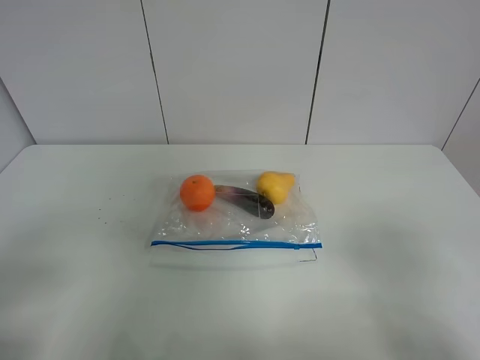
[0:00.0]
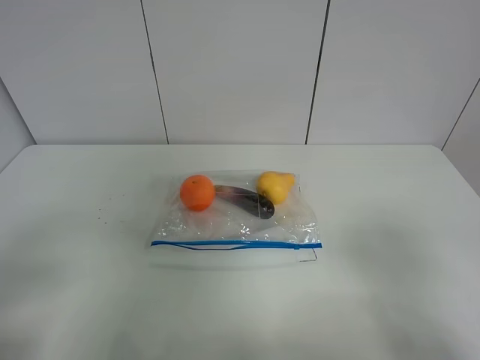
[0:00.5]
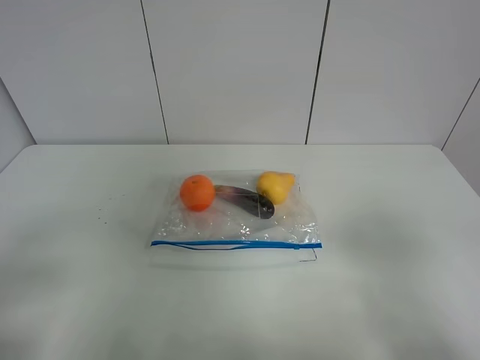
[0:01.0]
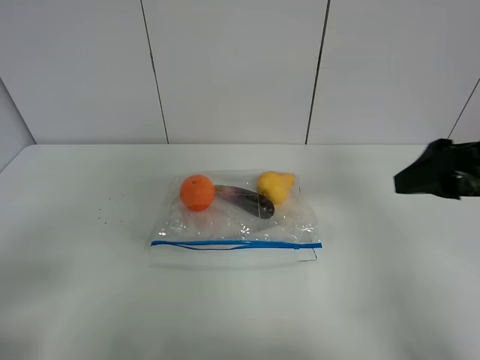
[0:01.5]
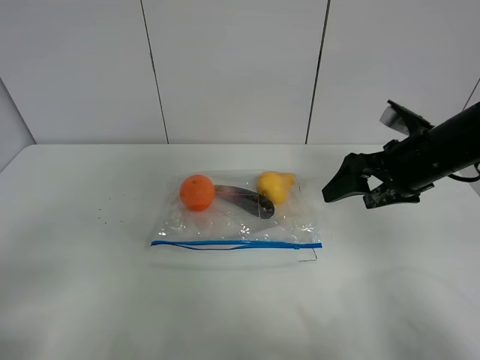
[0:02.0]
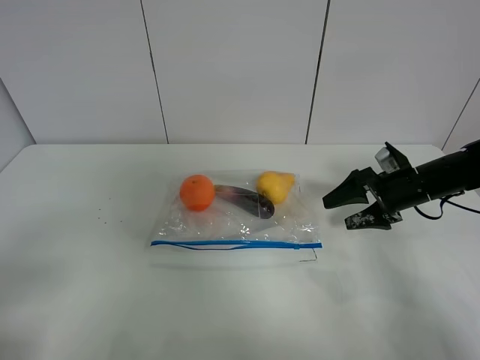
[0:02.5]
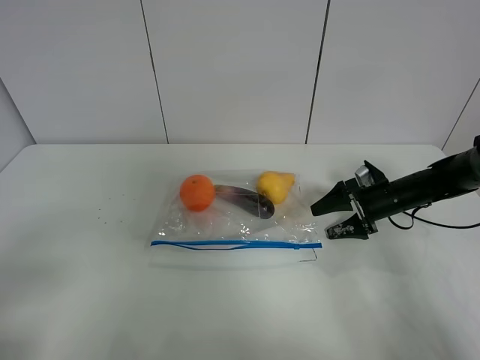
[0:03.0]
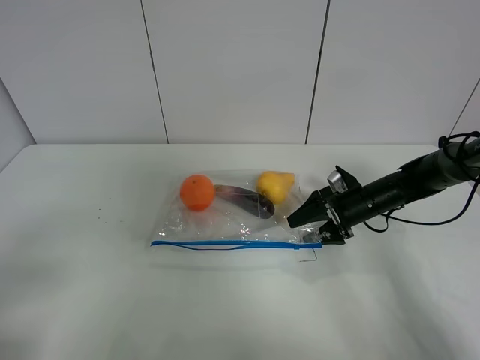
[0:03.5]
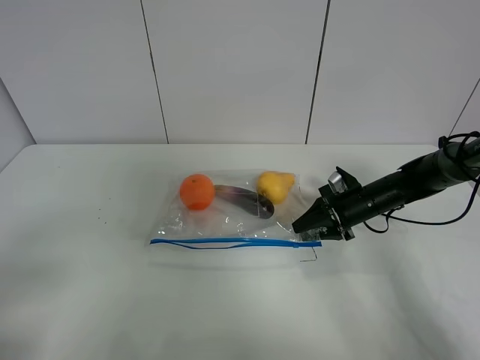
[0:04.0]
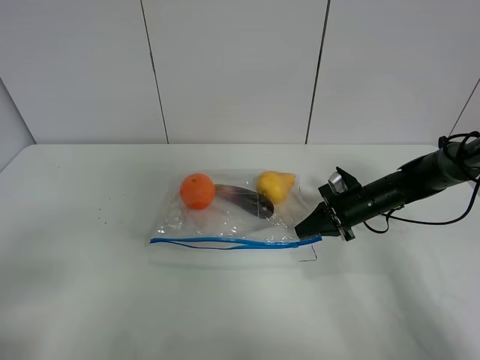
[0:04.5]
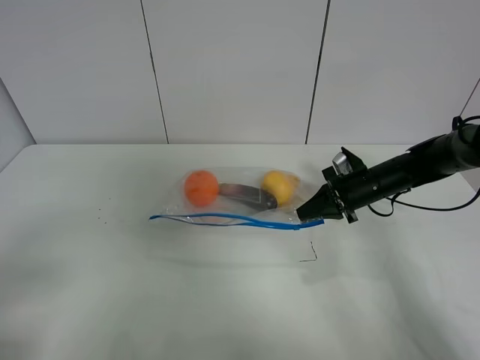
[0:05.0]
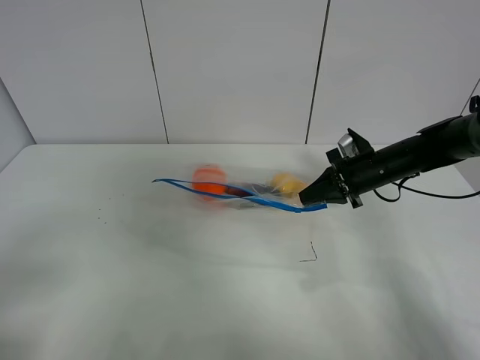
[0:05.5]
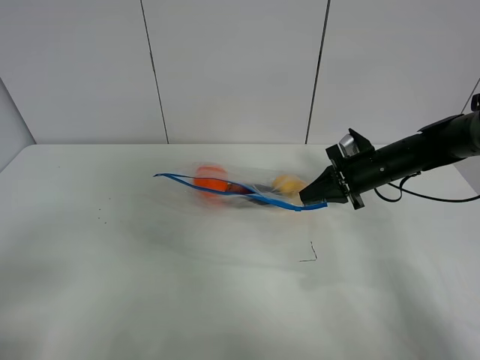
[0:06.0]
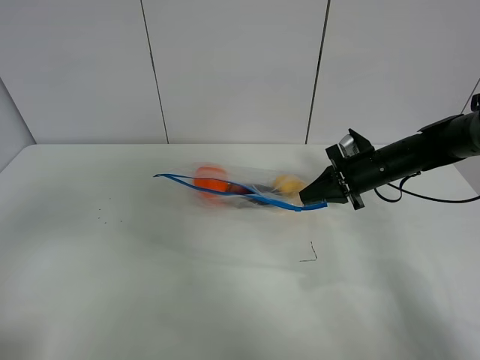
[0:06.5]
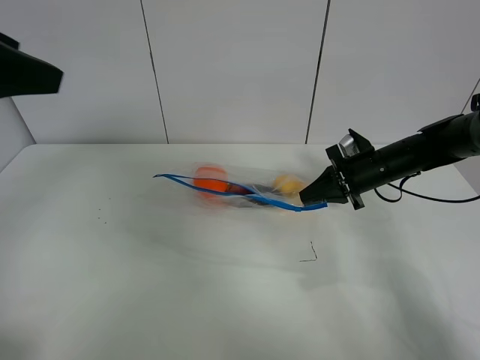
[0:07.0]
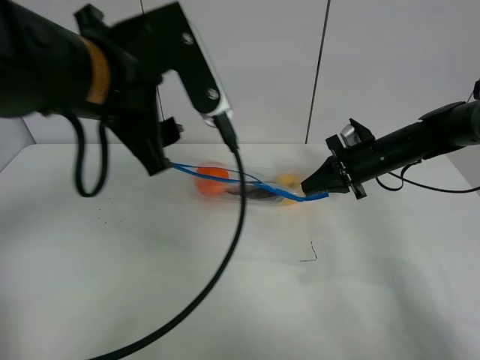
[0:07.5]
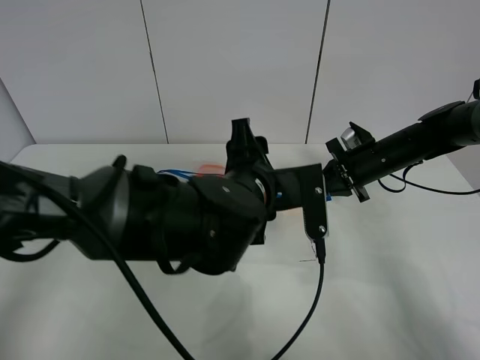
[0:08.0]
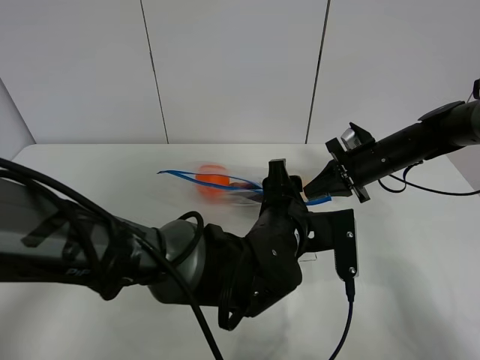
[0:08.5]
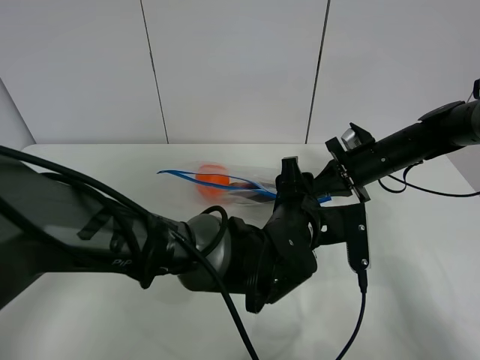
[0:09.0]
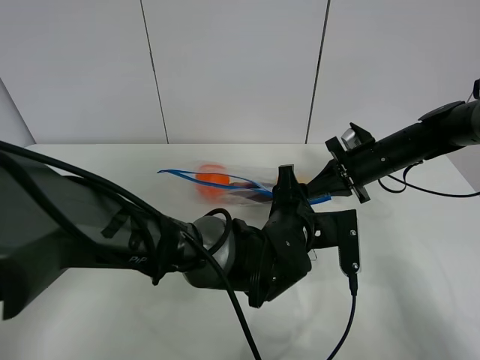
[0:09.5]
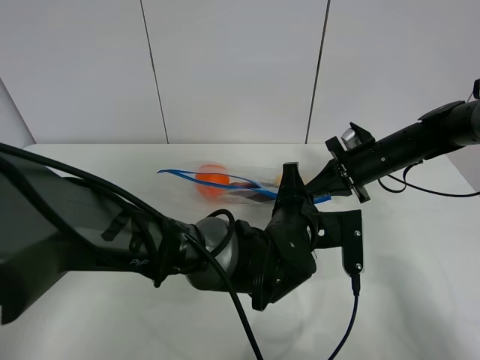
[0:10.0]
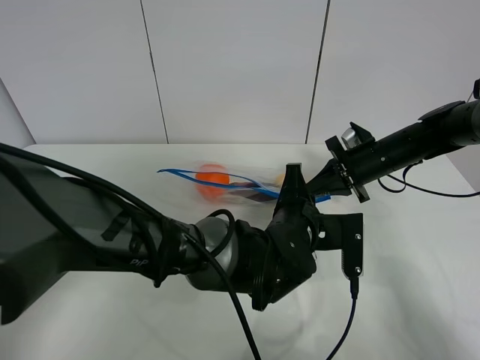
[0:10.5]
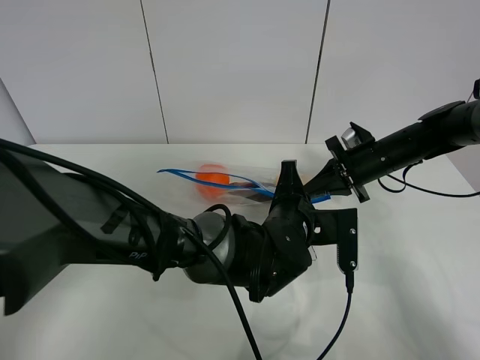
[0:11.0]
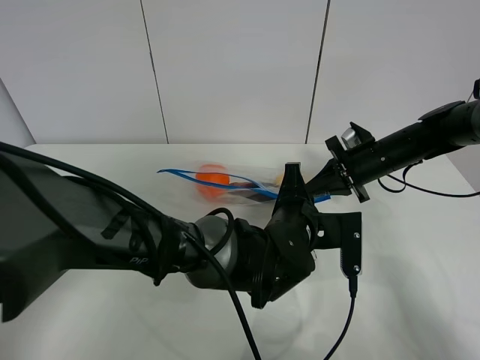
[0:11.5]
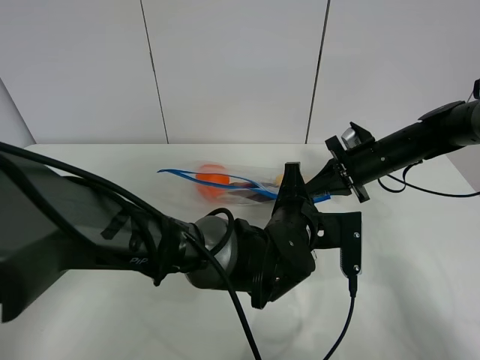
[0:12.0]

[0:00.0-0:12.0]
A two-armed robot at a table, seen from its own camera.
Step, 0:00.0 to 0:04.5: Grasp the fruit bag with right gripper.
Step, 0:05.0 to 0:05.5: Lift the fruit bag with your right gripper.
0:00.0 to 0:02.0: The right gripper heads forward, covering some 30 cm.
0:02.0 to 0:04.0: The right gripper travels downward and forward by approximately 20 cm, and closes its fingers.
0:04.0 to 0:06.0: The right gripper heads upward, covering about 10 cm, and closes.
0:06.0 to 0:08.0: The left gripper shifts some 40 cm to the right and forward.
0:08.0 to 0:10.0: The left gripper goes some 10 cm downward and to the right, and closes up.
0:10.0 to 0:12.0: Neither gripper changes place.

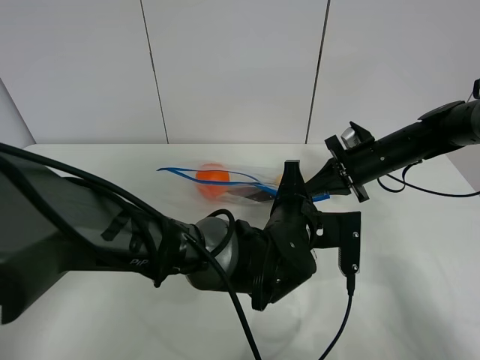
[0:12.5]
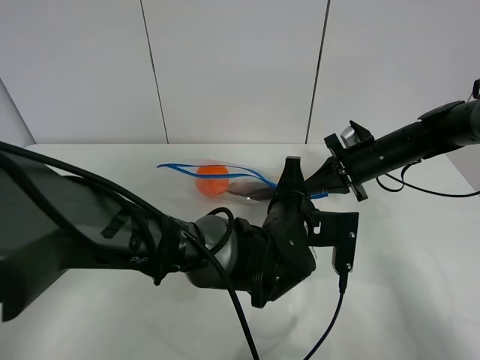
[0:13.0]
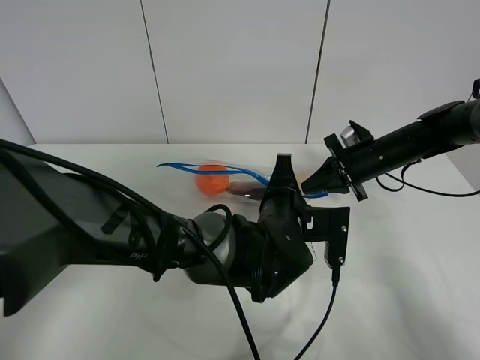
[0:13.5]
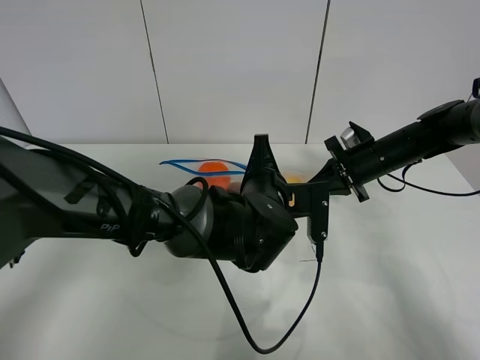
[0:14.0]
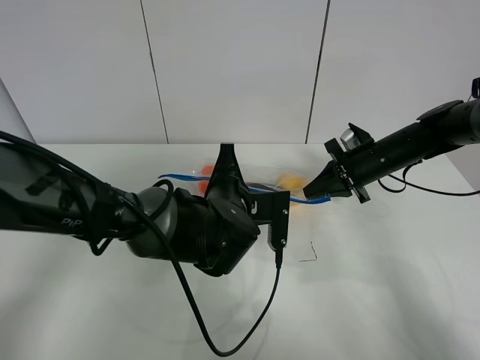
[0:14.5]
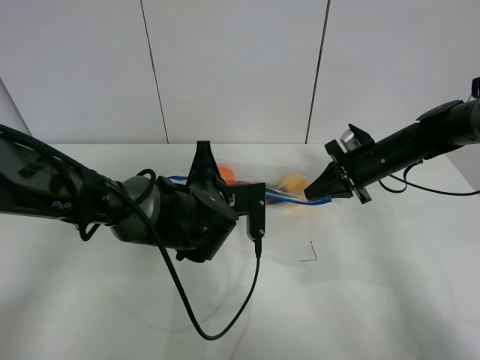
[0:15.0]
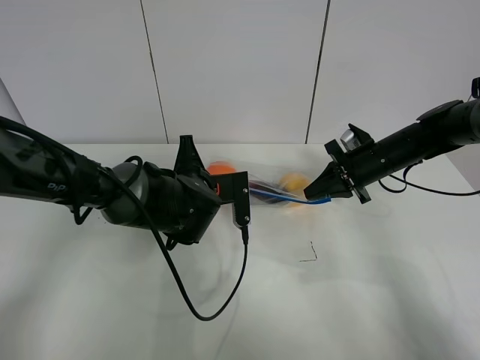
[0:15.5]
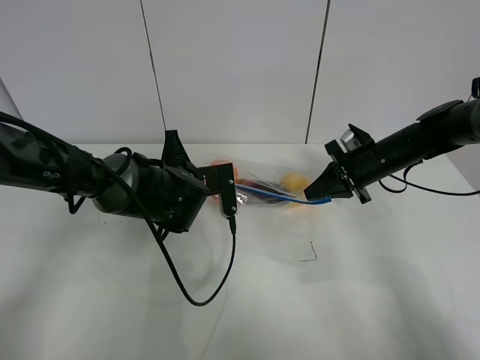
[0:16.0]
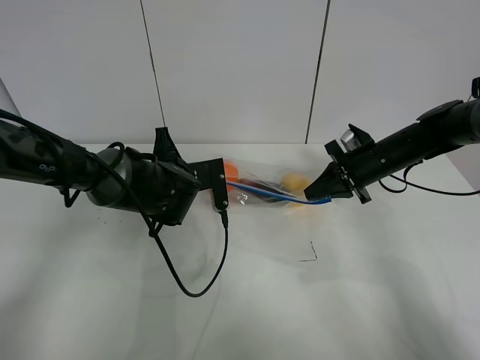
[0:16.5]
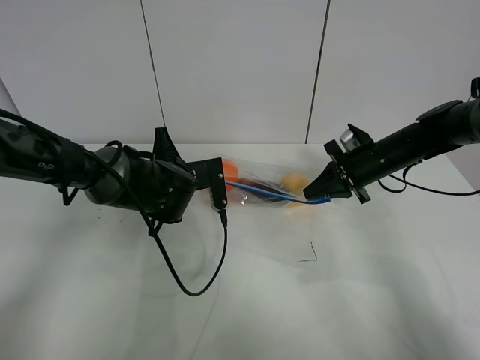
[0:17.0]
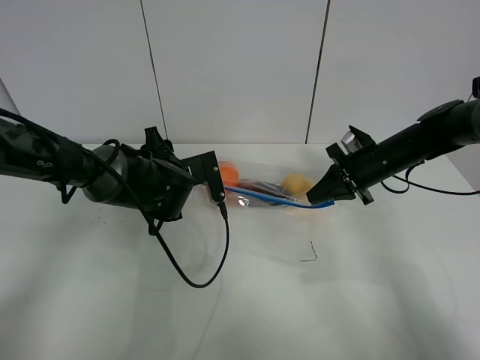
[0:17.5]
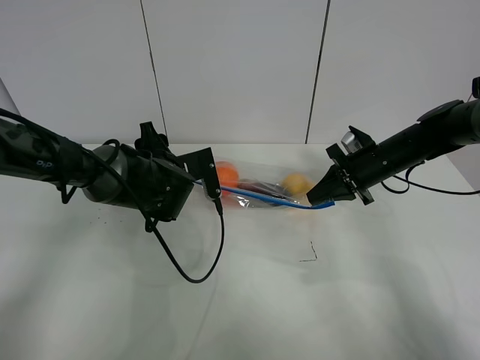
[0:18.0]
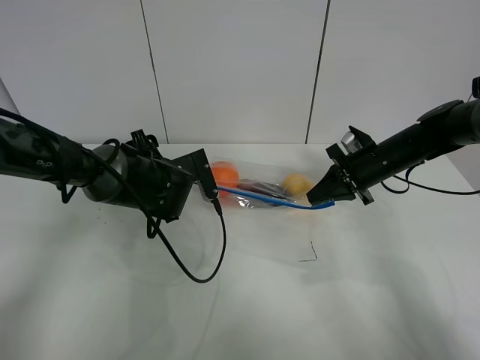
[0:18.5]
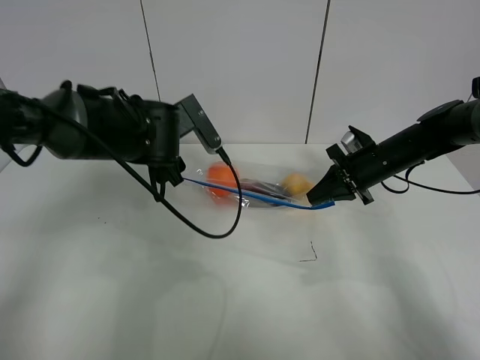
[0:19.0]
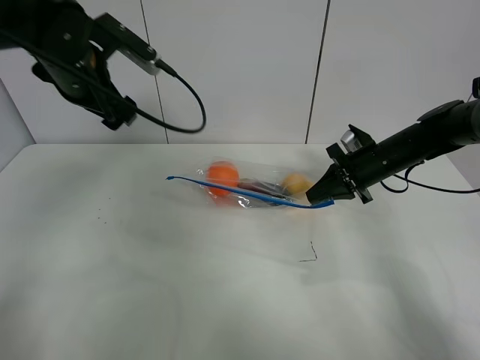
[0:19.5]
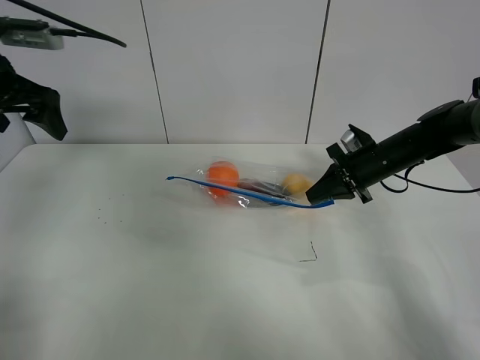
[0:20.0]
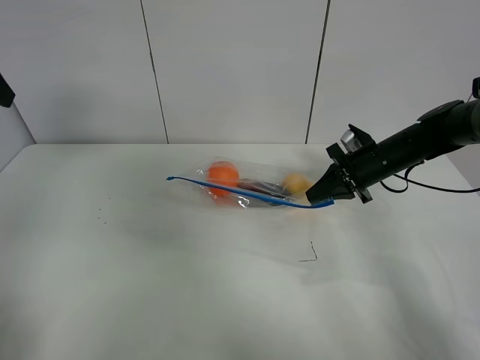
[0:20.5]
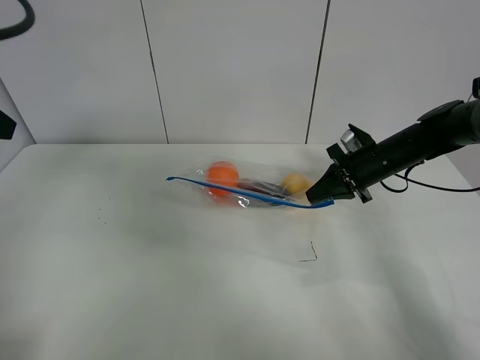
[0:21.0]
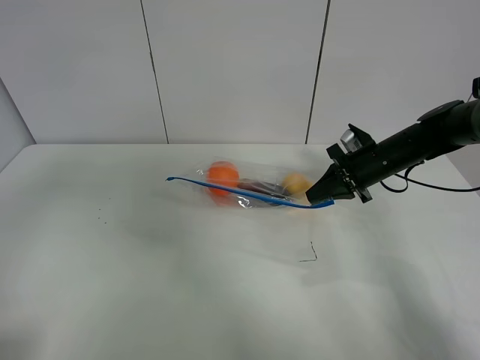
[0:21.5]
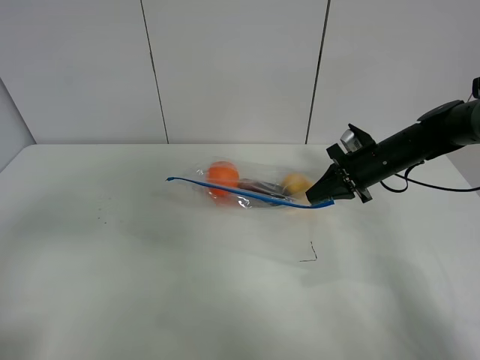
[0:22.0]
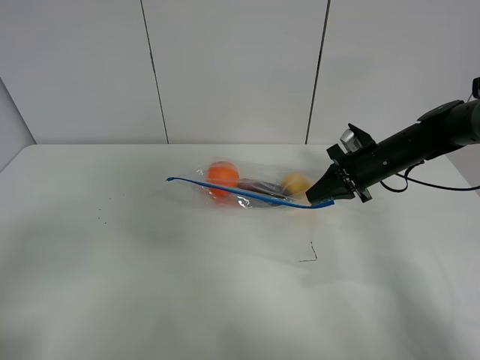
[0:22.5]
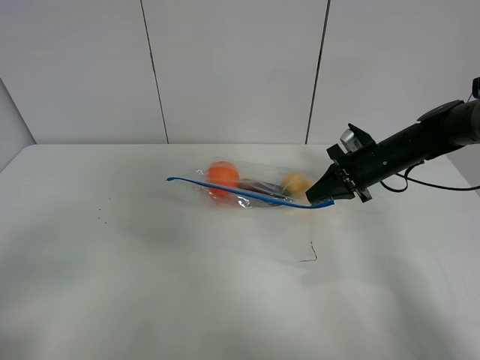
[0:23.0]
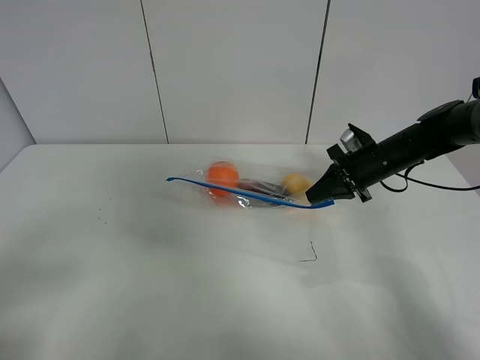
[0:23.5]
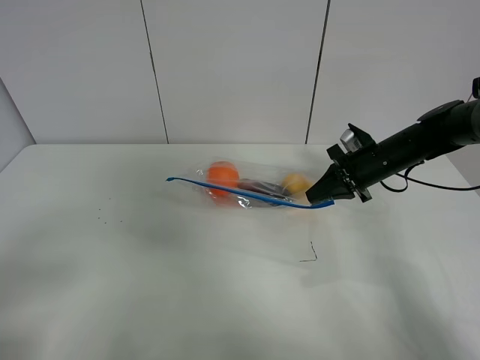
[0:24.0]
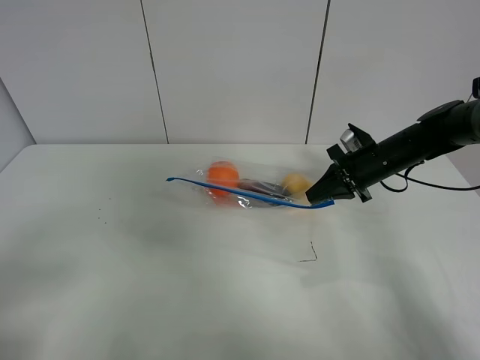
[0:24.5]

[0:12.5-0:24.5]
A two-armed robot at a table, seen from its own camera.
Step, 0:12.5 to 0:17.5: Pull the fruit bag with left gripper.
0:12.5 to 0:14.5: The left gripper is displaced to the left by about 10 cm.
0:14.5 to 0:16.5: The left gripper shifts roughly 10 cm to the left and forward.
0:16.5 to 0:18.5: The left gripper opens up.
0:18.5 to 0:20.5: The left gripper is displaced upward and to the left by about 35 cm.
0:20.5 to 0:22.5: The left gripper shifts some 30 cm backward.

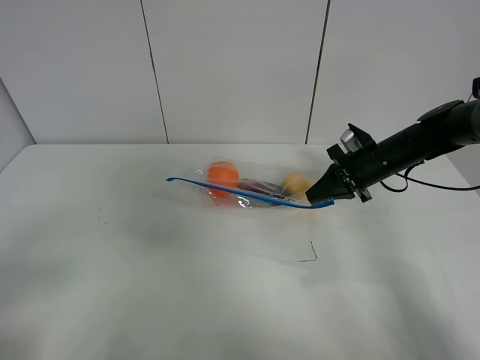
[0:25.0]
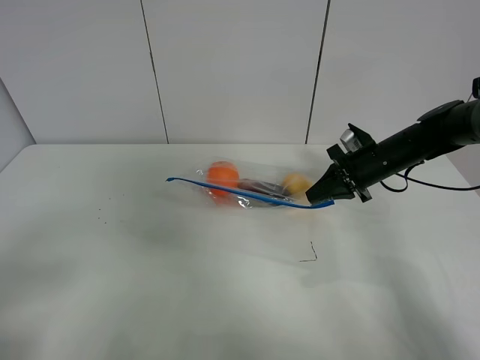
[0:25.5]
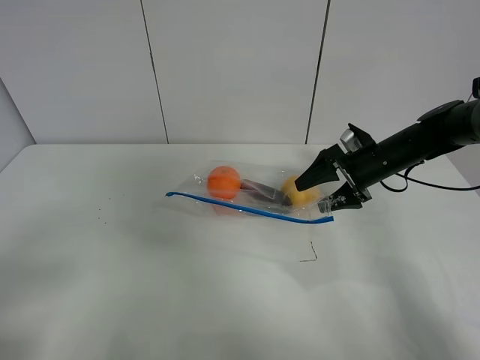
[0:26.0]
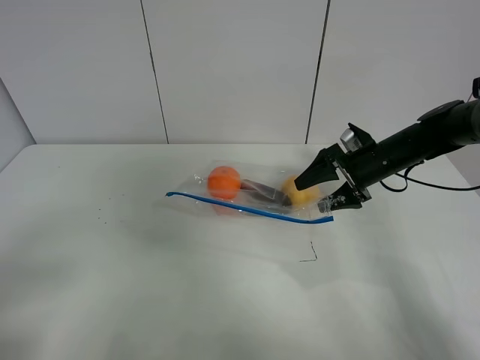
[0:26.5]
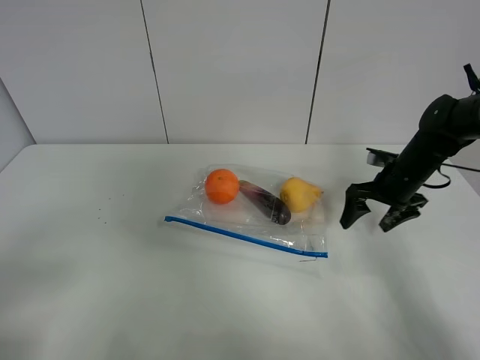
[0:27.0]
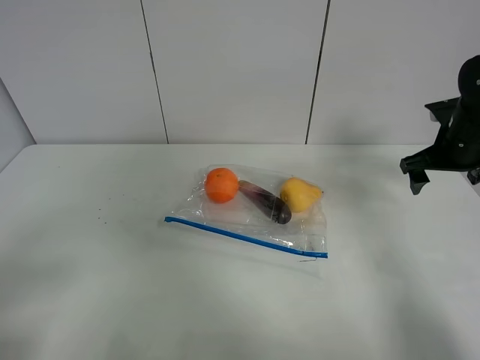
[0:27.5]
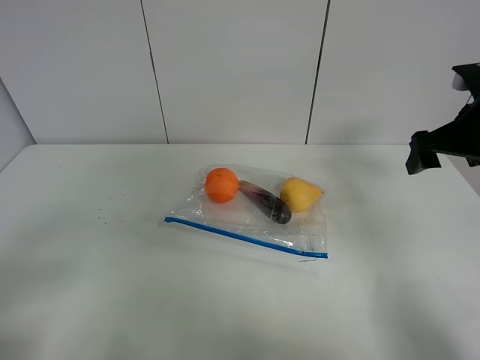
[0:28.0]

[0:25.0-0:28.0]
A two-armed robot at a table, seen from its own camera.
Step, 0:25.0 to 0:27.0: Place the fruit bag with right gripper.
0:25.0 to 0:26.5: The right gripper opens up.
0:26.5 to 0:28.0: The right gripper heads upward, backward and to the right, covering about 15 cm.
